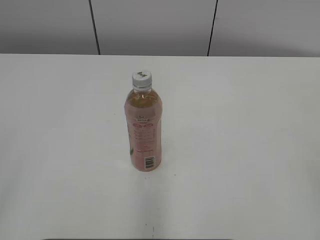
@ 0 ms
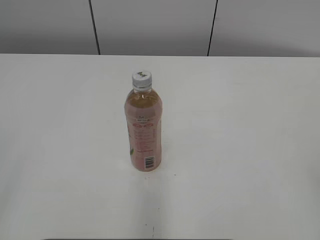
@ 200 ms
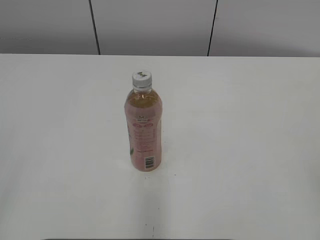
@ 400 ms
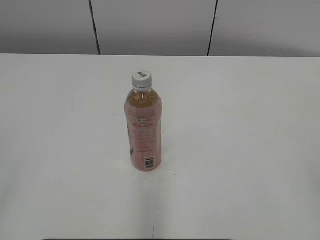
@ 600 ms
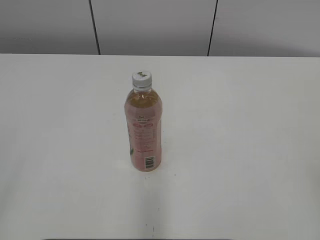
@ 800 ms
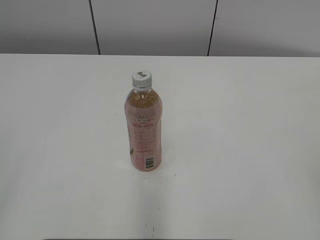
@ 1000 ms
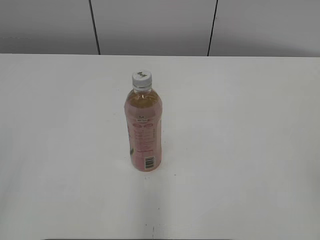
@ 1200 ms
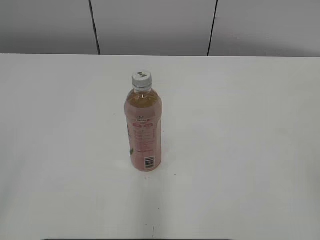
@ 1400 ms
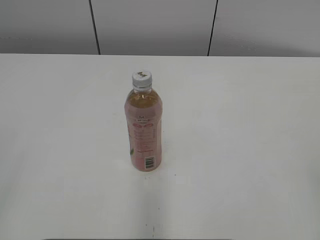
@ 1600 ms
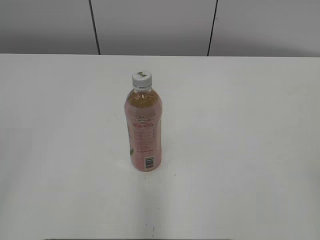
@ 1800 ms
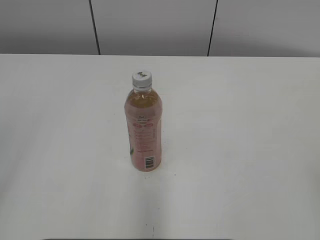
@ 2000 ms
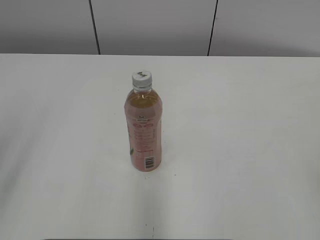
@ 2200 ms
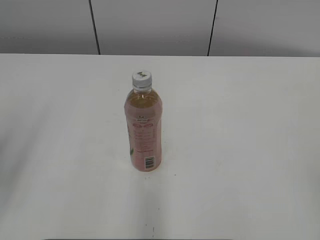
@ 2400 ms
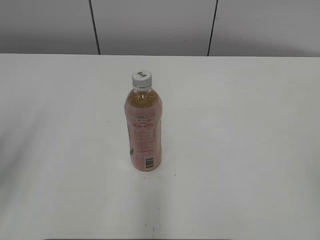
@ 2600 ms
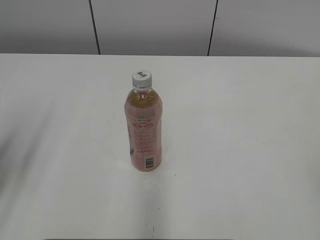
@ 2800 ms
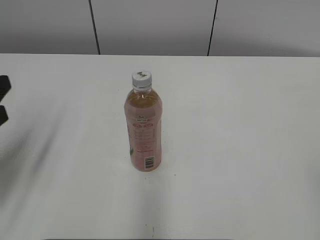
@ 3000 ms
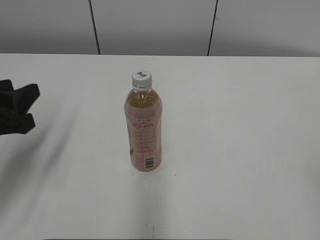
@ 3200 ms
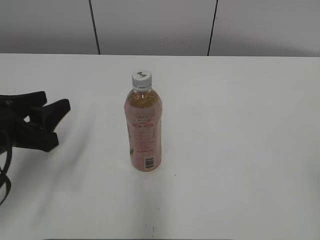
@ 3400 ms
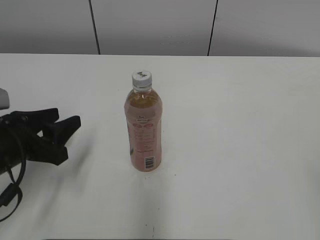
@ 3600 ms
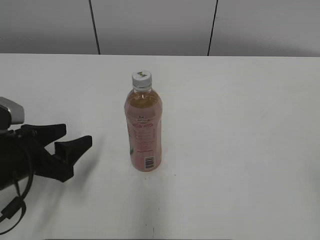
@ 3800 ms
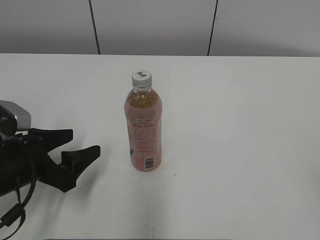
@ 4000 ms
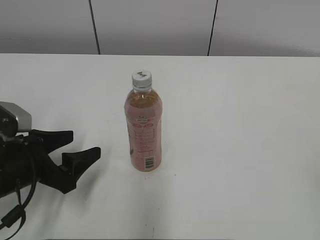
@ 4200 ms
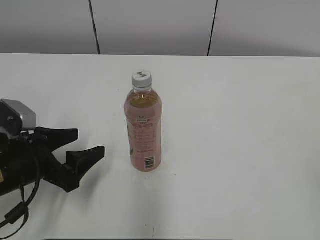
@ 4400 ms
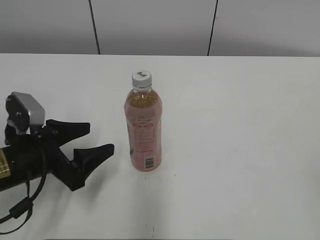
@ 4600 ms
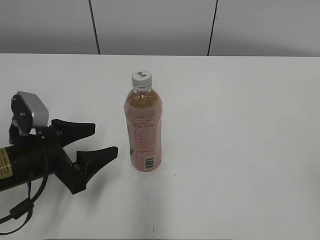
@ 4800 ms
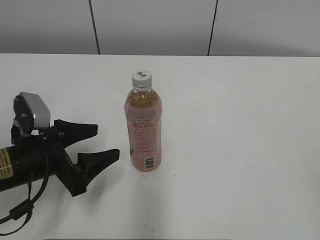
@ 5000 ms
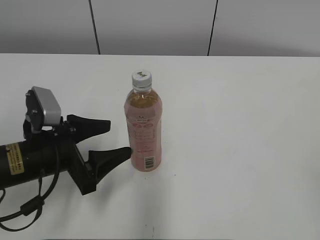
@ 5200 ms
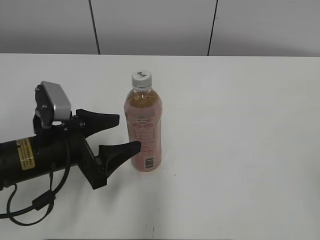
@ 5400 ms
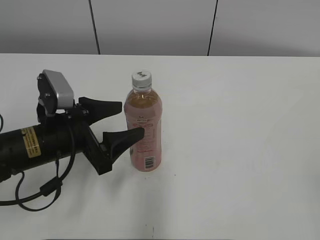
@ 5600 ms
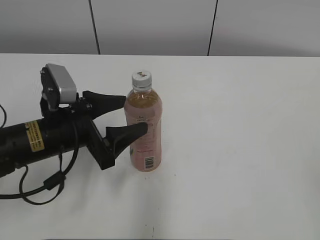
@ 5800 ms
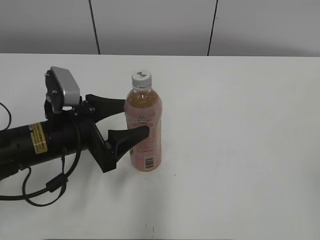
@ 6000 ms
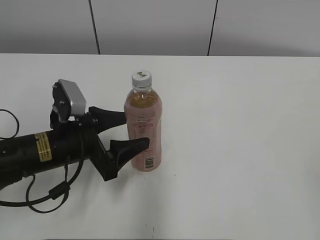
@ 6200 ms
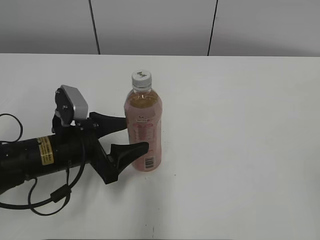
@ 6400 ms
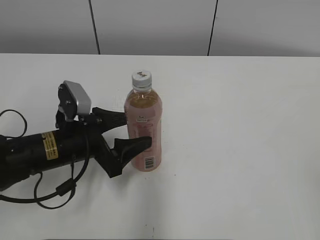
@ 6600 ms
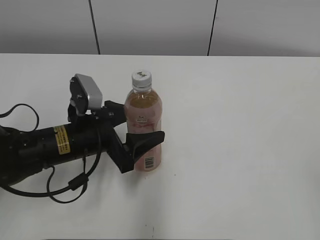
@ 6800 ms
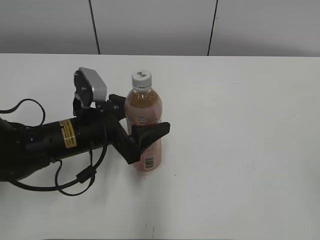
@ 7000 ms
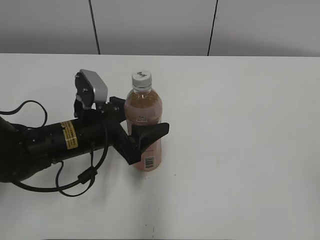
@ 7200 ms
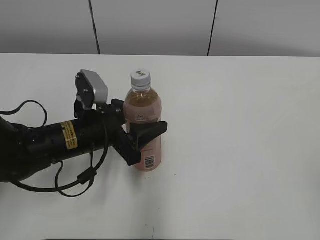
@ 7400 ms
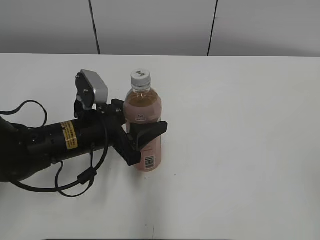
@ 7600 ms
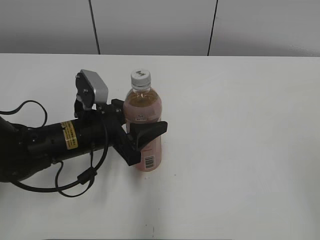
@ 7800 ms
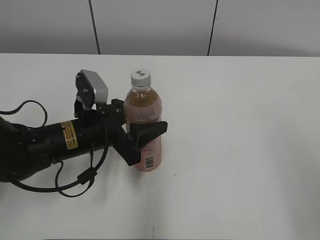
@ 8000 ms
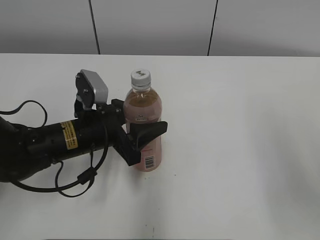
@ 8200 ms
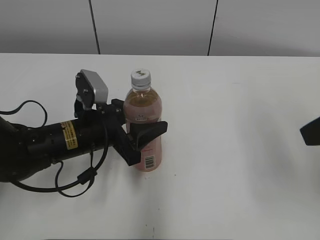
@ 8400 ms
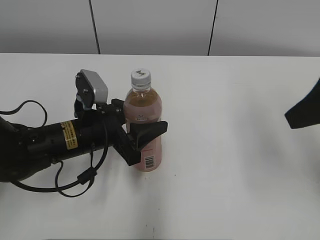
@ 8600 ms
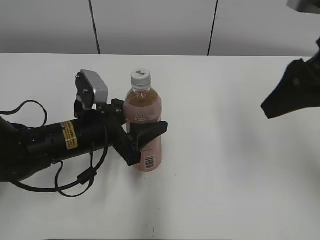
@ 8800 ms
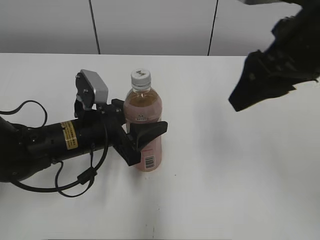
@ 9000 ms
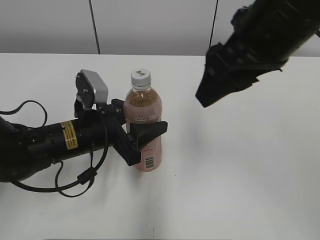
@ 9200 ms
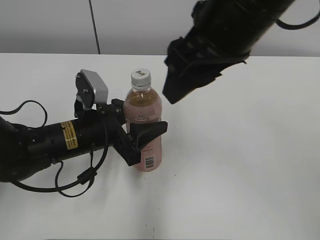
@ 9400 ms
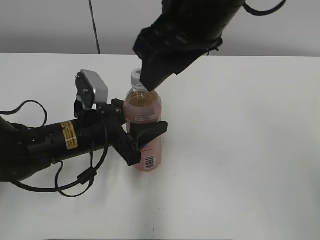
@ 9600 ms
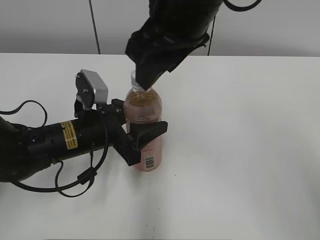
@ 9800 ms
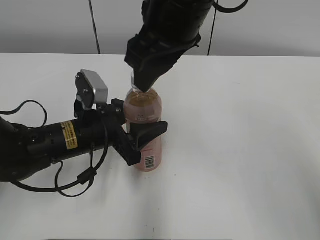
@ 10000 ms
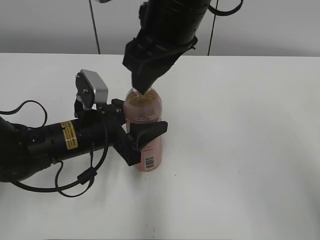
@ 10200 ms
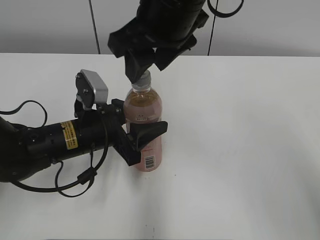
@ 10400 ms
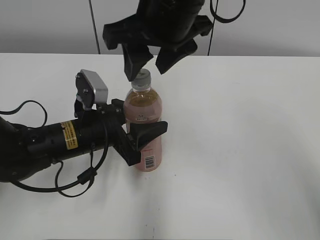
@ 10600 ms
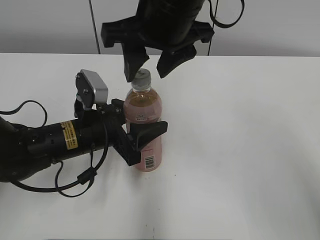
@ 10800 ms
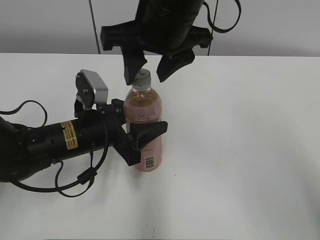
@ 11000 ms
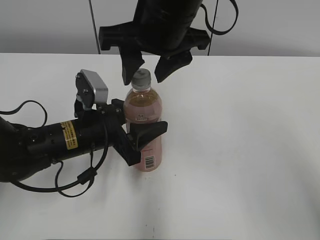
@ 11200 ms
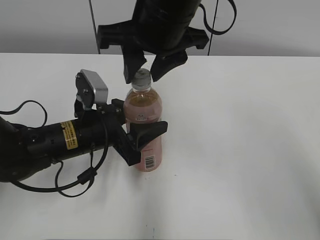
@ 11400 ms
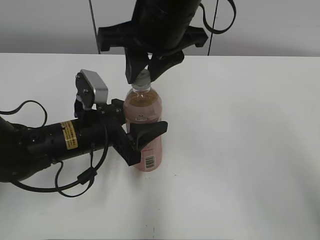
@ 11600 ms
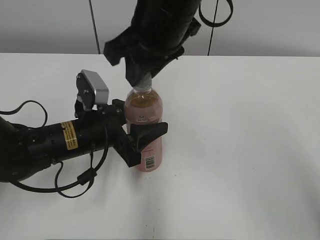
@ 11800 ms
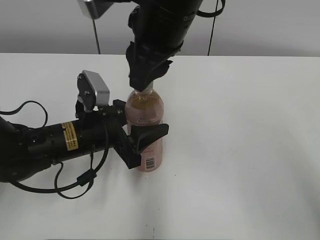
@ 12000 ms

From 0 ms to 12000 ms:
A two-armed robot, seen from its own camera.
Step, from 0 ms to 7400 ms: Grab the Peach Oolong Tea with the left hand.
From 1600 ms to 3000 ms: The left gripper travels forward and downward by roughly 20 cm.
From 3000 ms to 4400 ms: The left gripper goes about 15 cm downward and to the right, and opens up.
From 4400 ms to 6000 ms: The left gripper goes approximately 5 cm to the right.
From 6000 ms to 7600 ms: The left gripper closes.
From 7600 ms to 9000 ms: The right gripper travels forward and to the left by approximately 30 cm.
From 9000 ms to 10400 ms: The right gripper heads to the left, covering approximately 15 cm.
From 10400 ms to 12000 ms: The right gripper closes.

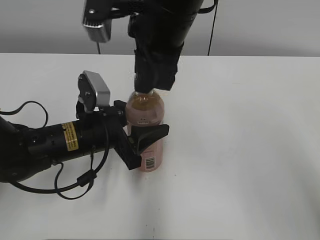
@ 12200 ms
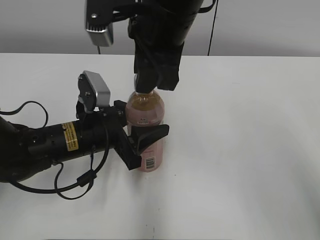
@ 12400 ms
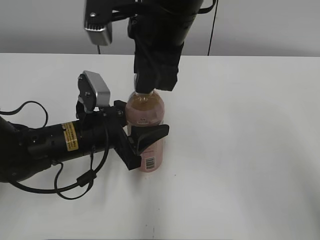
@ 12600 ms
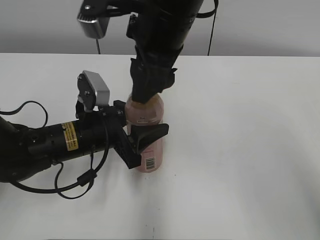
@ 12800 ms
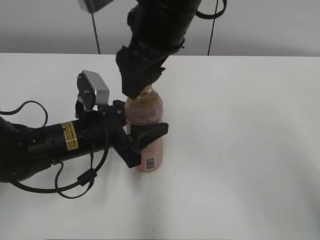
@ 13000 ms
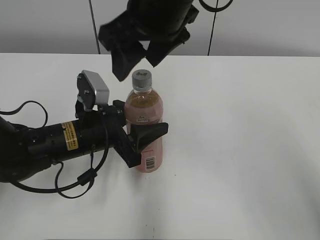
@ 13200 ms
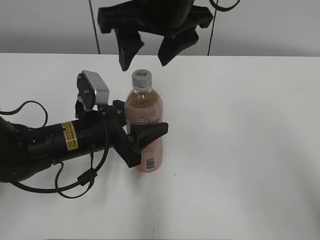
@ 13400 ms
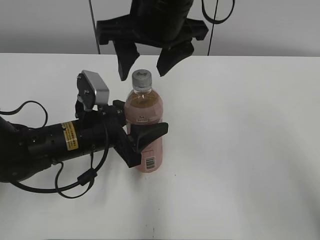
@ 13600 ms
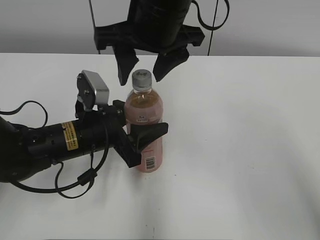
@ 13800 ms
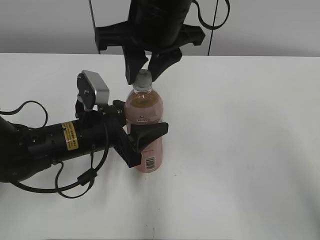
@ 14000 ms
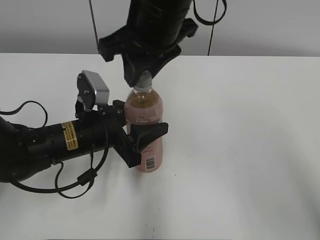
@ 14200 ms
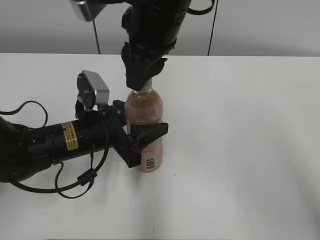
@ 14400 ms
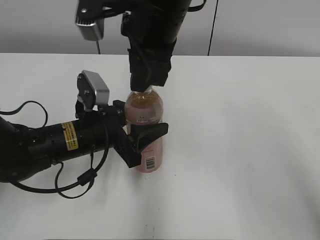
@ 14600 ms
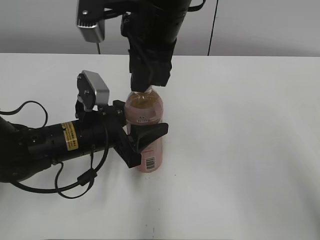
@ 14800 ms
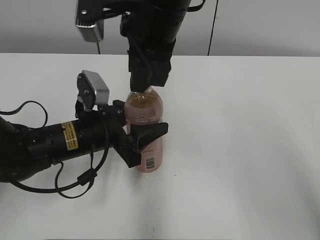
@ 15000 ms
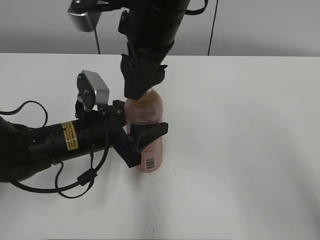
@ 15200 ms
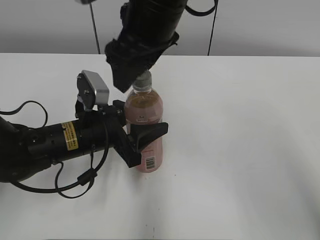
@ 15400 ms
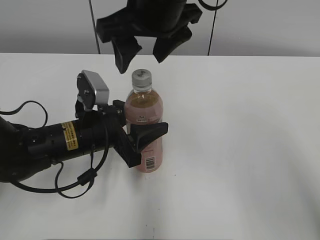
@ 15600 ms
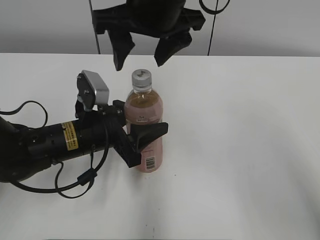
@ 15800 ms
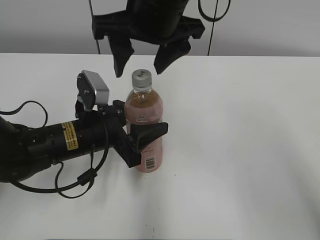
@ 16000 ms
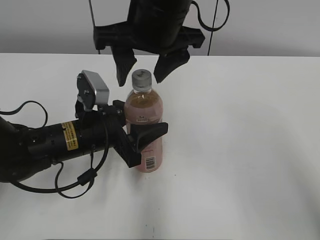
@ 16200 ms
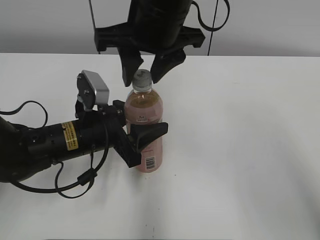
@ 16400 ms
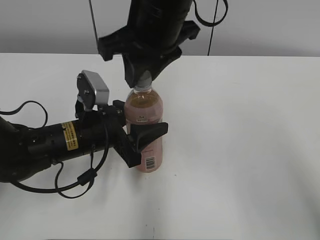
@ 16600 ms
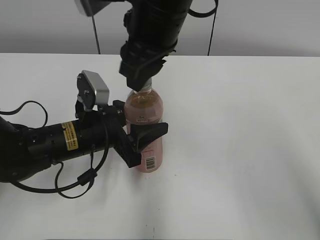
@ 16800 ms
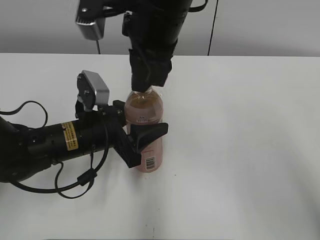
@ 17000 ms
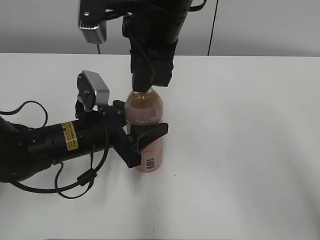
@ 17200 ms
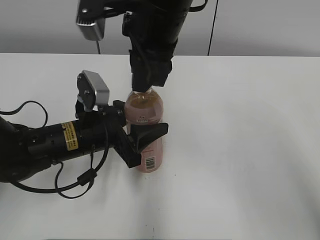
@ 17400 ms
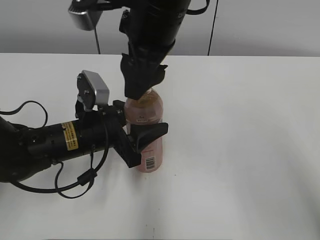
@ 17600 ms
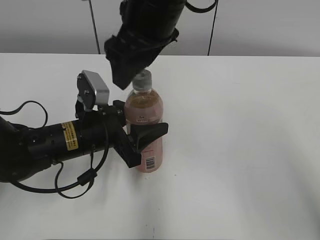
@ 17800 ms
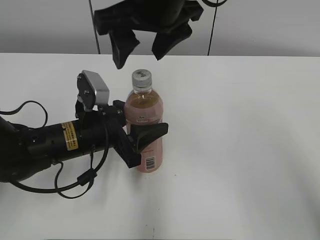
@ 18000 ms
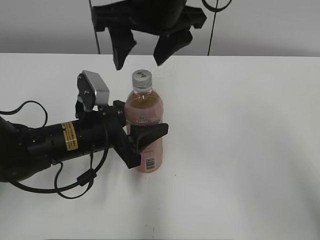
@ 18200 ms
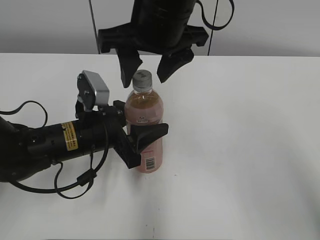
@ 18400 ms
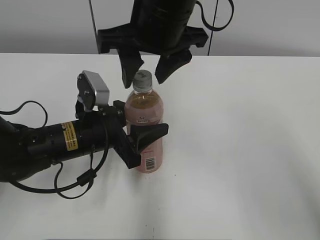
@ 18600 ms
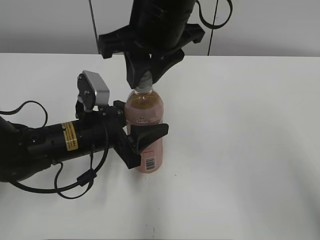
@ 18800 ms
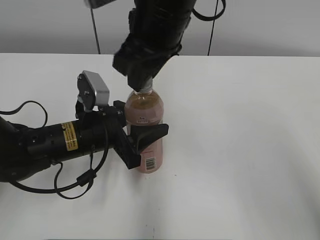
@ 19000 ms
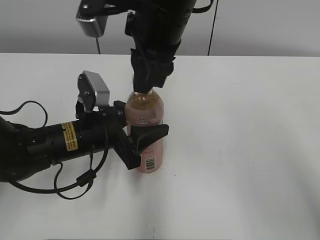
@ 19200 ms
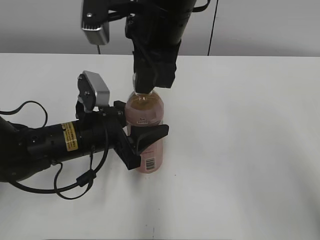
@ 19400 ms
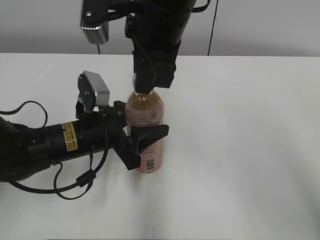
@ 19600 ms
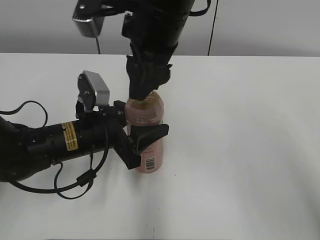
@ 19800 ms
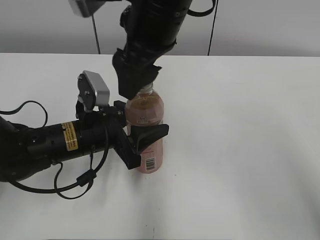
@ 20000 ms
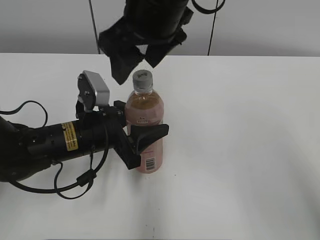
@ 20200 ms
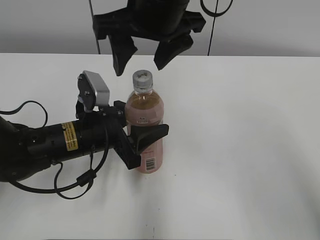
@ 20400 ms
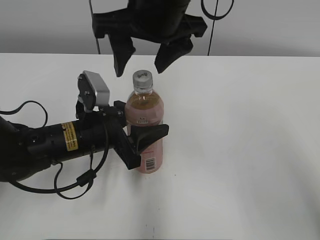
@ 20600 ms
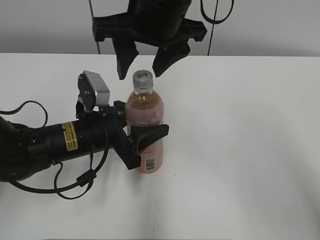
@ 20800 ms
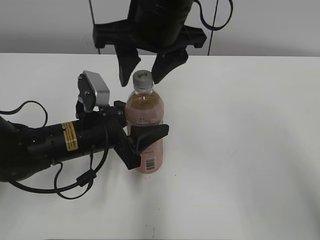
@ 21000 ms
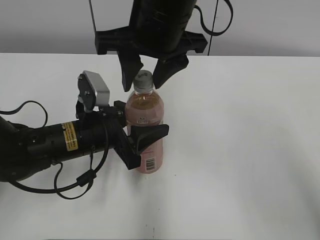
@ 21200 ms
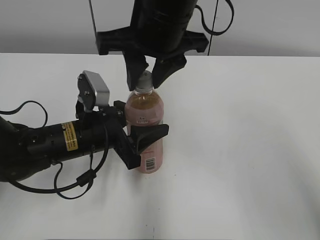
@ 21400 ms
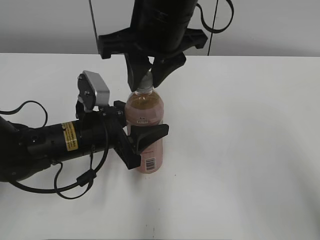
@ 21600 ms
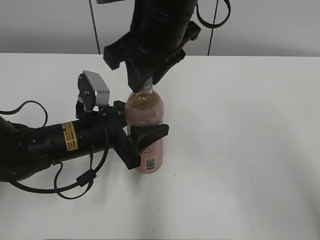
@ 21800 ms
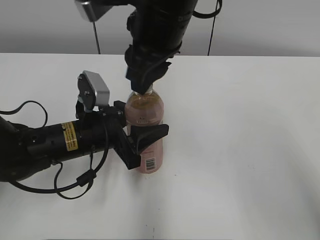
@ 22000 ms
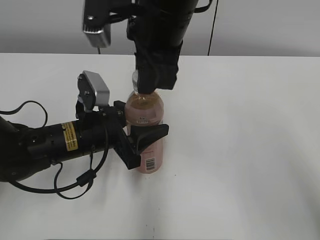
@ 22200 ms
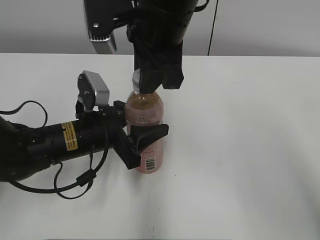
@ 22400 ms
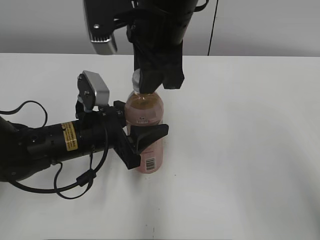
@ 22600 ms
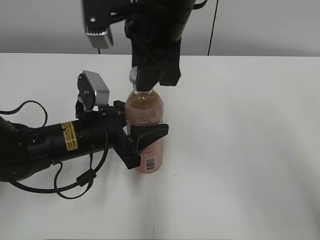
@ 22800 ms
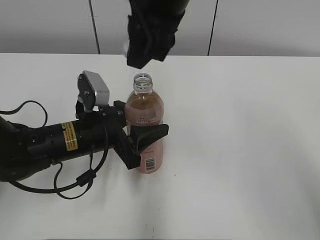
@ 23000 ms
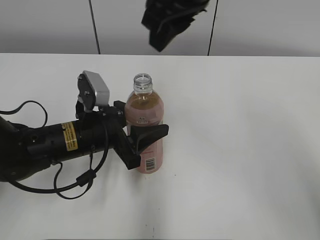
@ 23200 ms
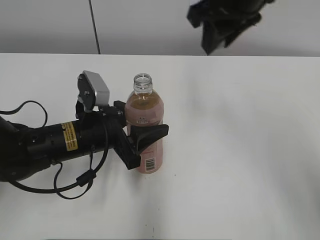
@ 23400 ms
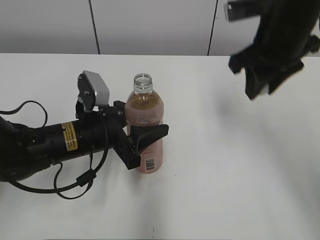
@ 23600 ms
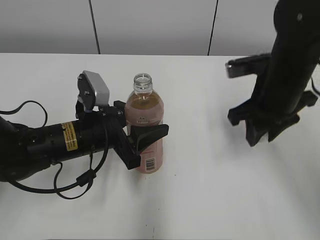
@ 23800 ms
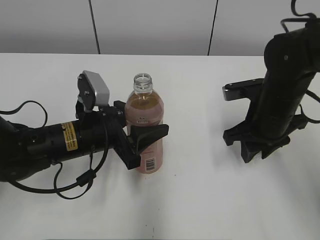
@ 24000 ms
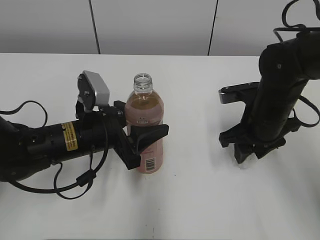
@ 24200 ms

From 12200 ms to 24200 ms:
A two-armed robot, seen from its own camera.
Step, from 23000 ms to 24200 ms: Place the bottle cap on the right.
From 12200 ms to 13800 ms: The right gripper opens.
From 13800 ms to 15200 ms: The right gripper closes and opens again.
From 15200 ms to 16600 ms: The right gripper closes.
From 16600 ms to 18200 ms: The right gripper opens.
From 18200 ms to 19800 ms: The right gripper closes.
From 19800 ms to 21200 ms: The right gripper opens, then closes once more.
From 21200 ms to 22600 ms: The right gripper closes.
From 22600 ms to 24200 ms: The right gripper travels to the right and downward by some 25 cm.
